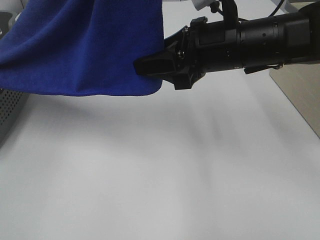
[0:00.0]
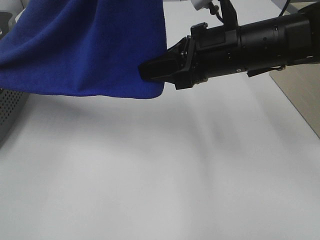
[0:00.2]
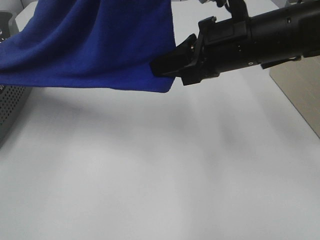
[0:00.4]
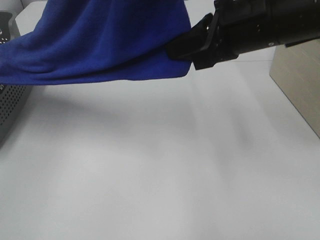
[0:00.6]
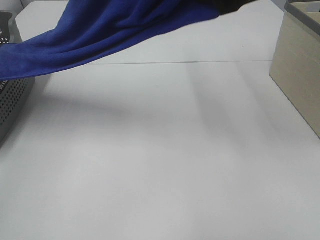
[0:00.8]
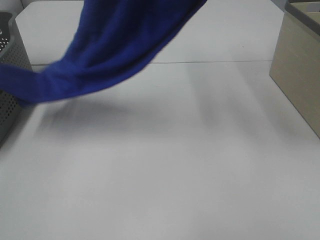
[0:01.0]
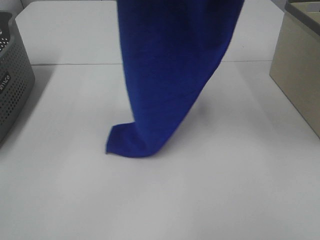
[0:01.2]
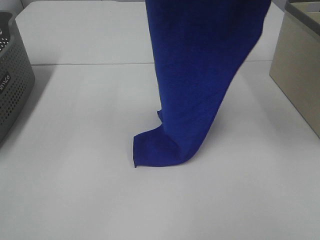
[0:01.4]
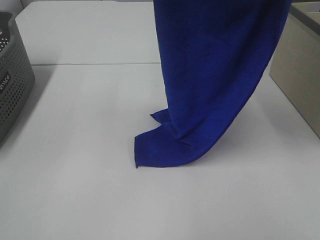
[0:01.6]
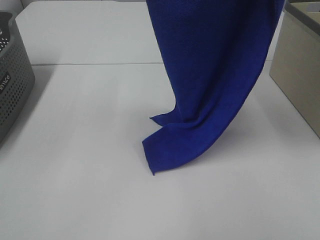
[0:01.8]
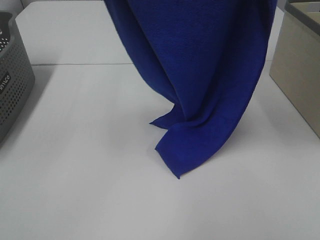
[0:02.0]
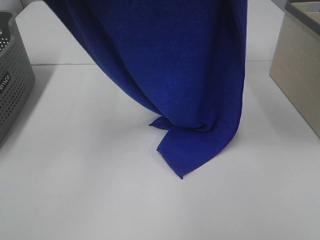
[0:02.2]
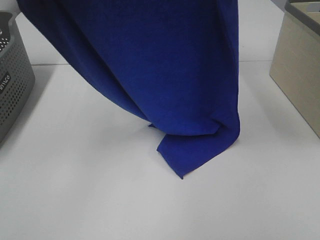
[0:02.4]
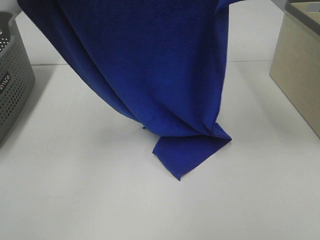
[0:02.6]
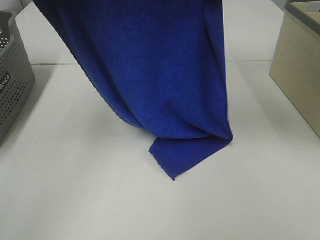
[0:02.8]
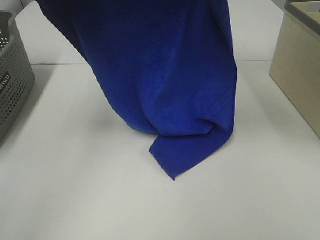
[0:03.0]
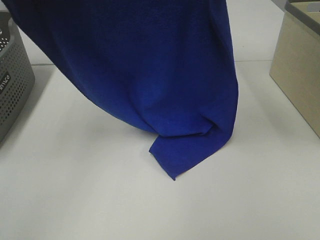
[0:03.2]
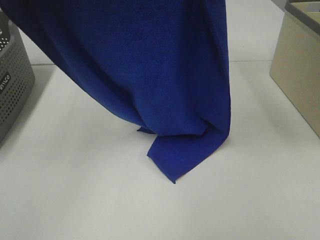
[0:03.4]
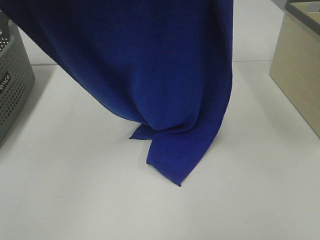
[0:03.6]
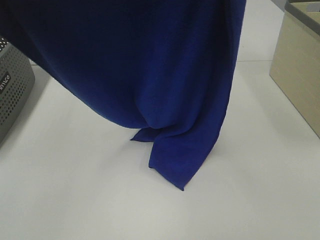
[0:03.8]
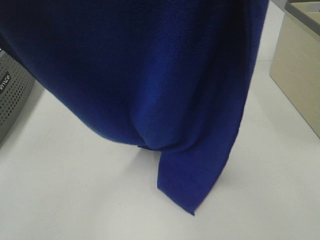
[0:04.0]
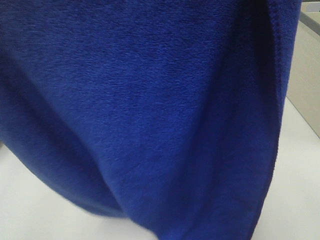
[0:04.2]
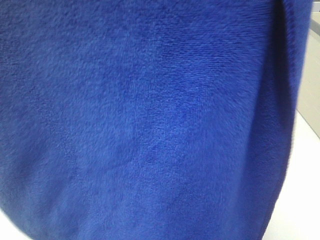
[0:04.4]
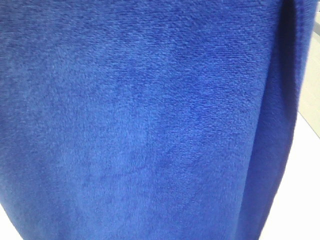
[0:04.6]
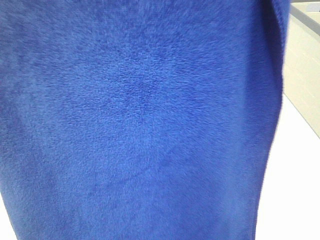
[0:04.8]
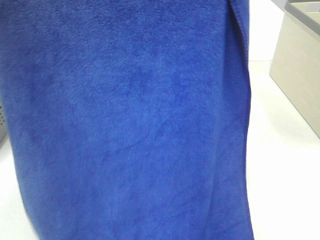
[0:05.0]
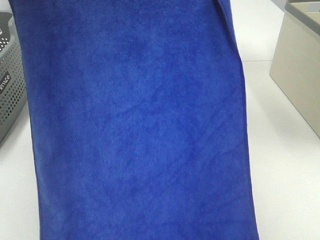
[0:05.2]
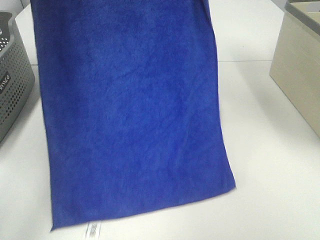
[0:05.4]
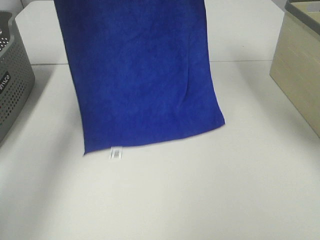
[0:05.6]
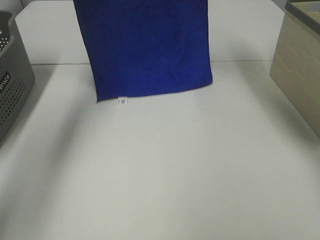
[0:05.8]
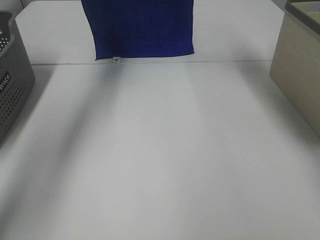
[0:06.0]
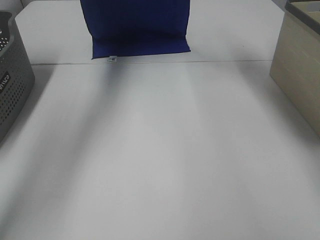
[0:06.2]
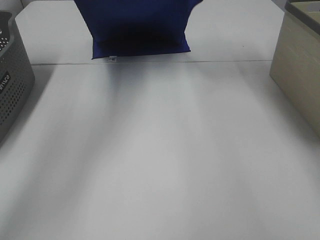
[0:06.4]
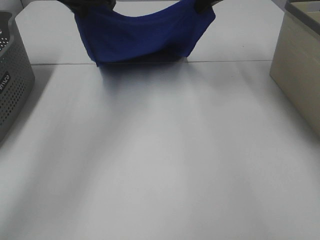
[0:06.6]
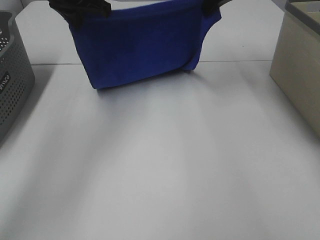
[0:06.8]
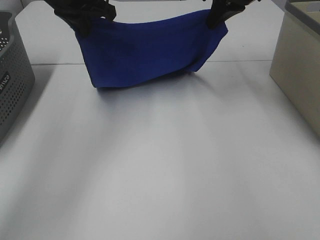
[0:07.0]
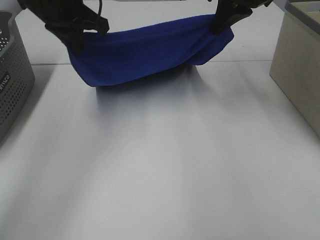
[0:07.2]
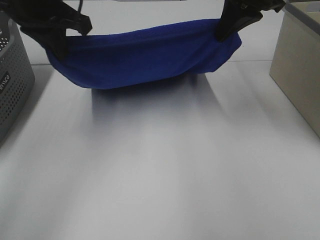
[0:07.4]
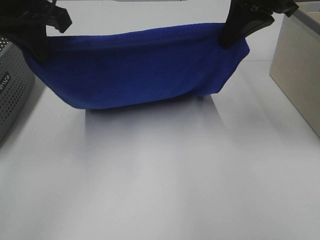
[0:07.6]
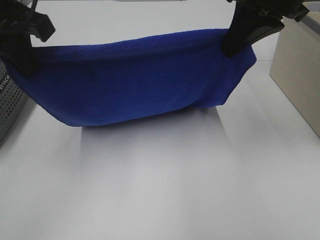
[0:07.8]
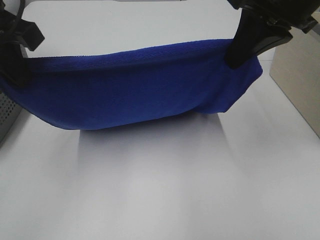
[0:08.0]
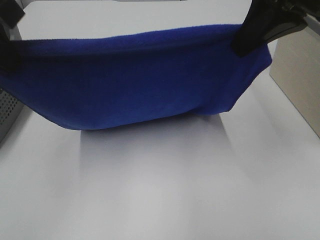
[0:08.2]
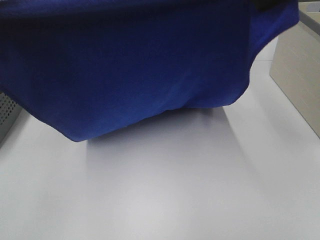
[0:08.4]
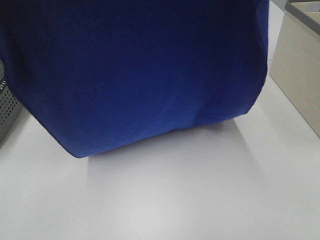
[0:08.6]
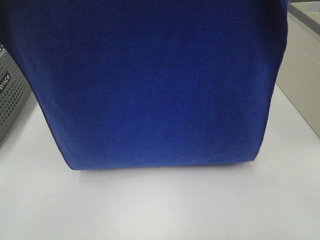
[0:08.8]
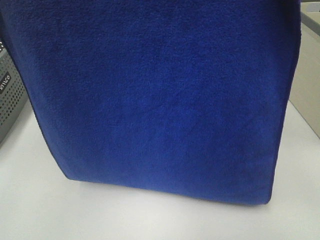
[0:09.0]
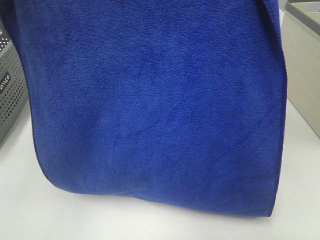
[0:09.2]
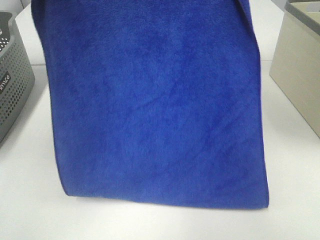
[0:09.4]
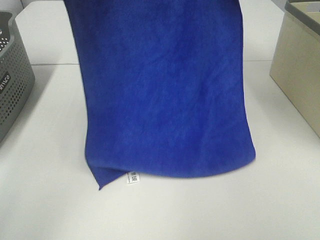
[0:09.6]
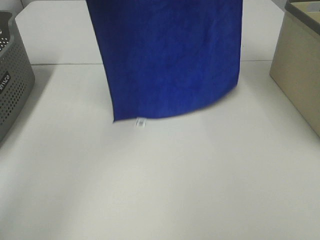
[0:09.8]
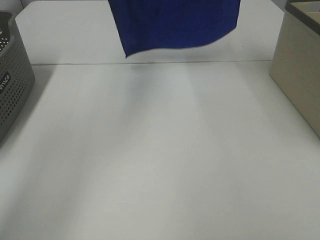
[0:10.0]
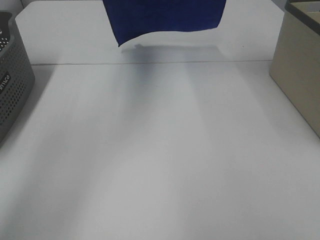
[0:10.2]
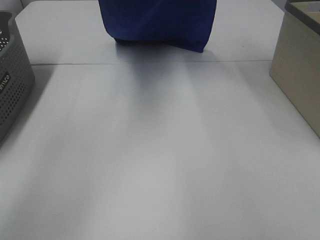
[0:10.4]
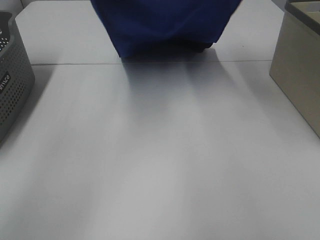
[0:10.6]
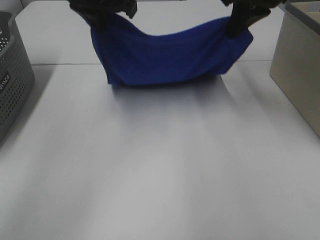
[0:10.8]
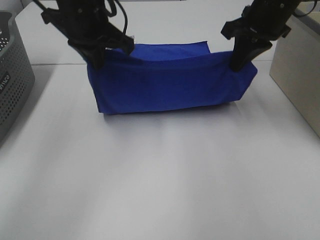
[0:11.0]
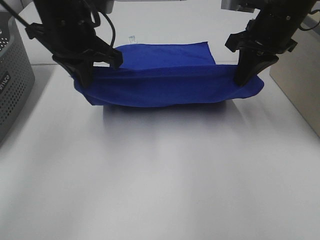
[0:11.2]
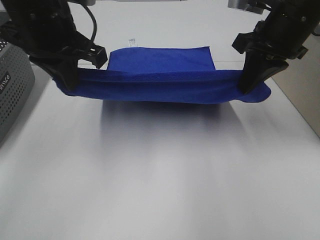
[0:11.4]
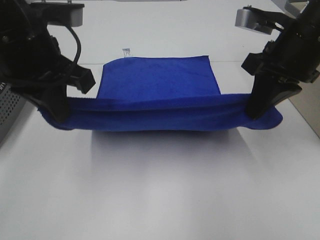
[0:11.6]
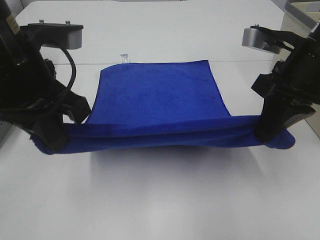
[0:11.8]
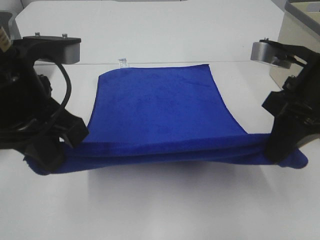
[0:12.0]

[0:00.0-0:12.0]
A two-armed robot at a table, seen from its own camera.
Task of the whole recording: Remove the towel and place it.
Step, 0:00.0 to 0:02.0: Right hand: grab a corner of the blue towel and straighten it.
Step, 0:02.2 to 0:09.8: Right hand: spread the blue towel flat on the table.
Step, 0:02.2 to 0:10.0: Left hand: spread the blue towel flat on the table.
0:00.0 to 0:01.6: The right gripper moves upward, approximately 25 cm, and closes its fingers.
0:01.6 to 0:03.0: The right gripper heads forward and to the left, covering some 10 cm. The left gripper travels to the left and downward by some 10 cm.
0:03.0 to 0:04.4: The grippers both shift backward and upward by some 25 cm.
0:04.4 to 0:06.0: Both grippers move forward, approximately 40 cm.
0:06.0 to 0:07.6: Both grippers travel together backward and downward, about 20 cm.
0:07.6 to 0:09.0: Both grippers move upward and backward, some 25 cm.
0:09.0 to 0:10.4: The left gripper shifts about 30 cm forward and to the right. Meanwhile the right gripper shifts approximately 25 cm forward.
0:10.4 to 0:12.0: The two grippers go some 25 cm backward and downward.

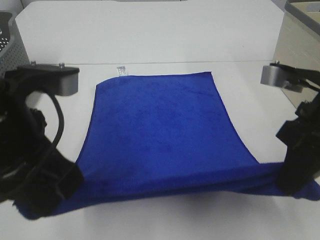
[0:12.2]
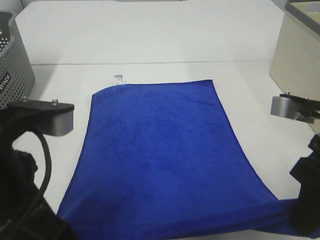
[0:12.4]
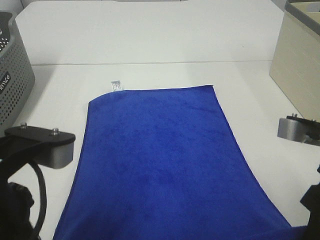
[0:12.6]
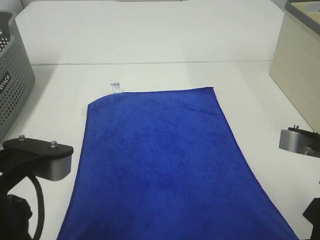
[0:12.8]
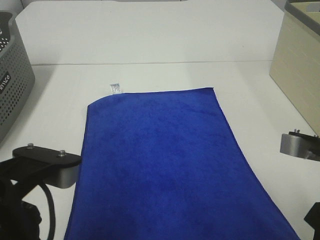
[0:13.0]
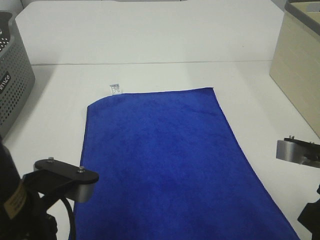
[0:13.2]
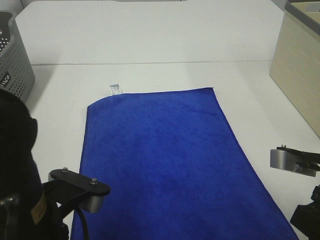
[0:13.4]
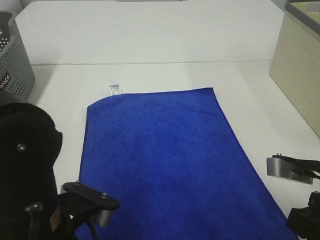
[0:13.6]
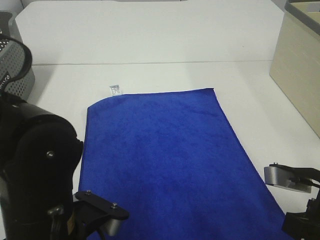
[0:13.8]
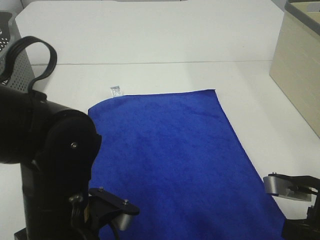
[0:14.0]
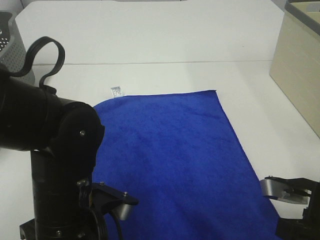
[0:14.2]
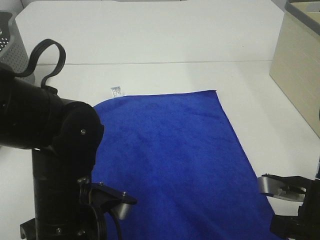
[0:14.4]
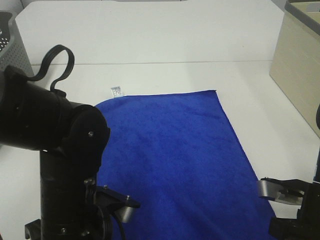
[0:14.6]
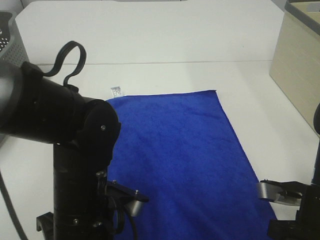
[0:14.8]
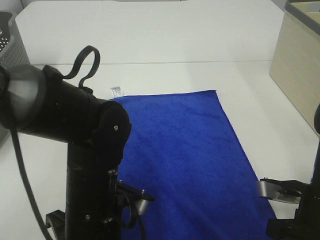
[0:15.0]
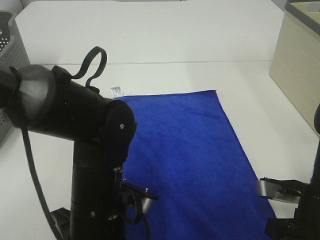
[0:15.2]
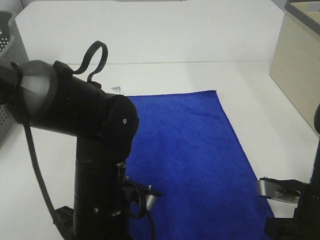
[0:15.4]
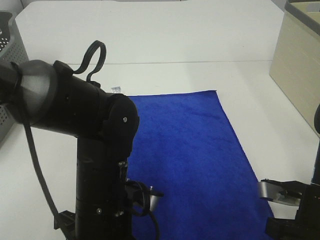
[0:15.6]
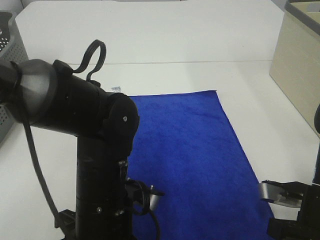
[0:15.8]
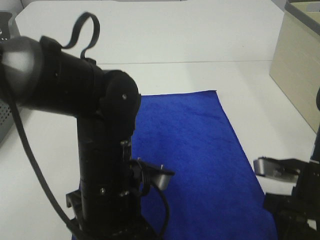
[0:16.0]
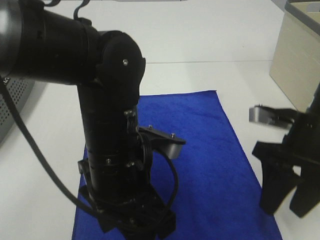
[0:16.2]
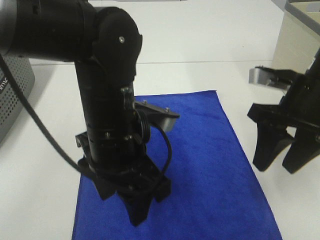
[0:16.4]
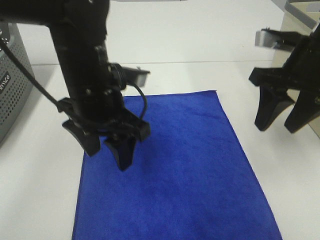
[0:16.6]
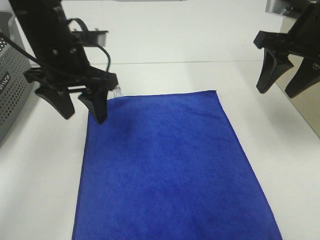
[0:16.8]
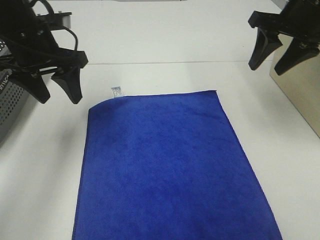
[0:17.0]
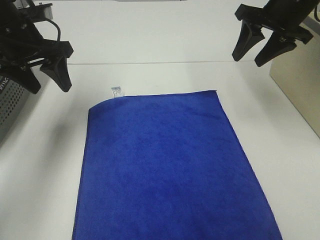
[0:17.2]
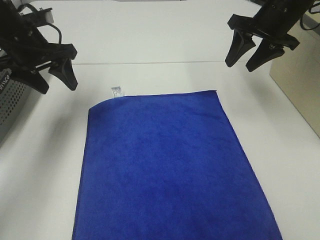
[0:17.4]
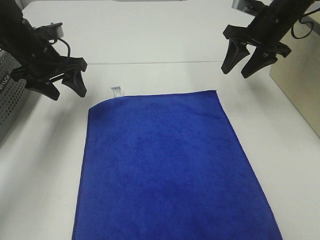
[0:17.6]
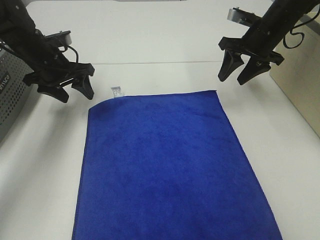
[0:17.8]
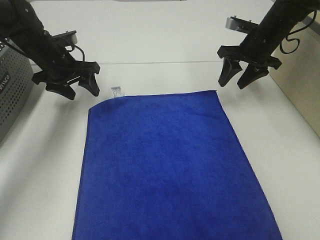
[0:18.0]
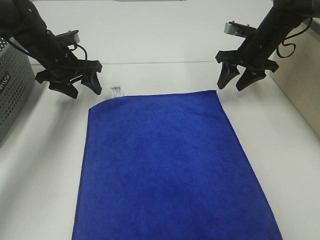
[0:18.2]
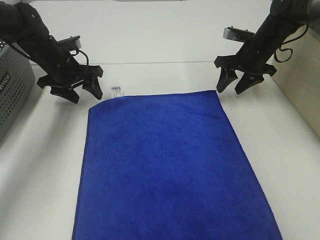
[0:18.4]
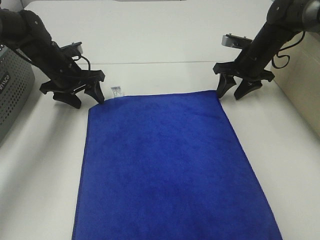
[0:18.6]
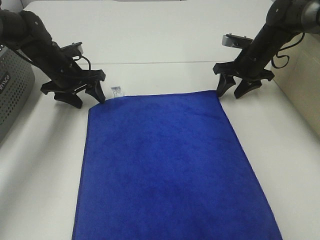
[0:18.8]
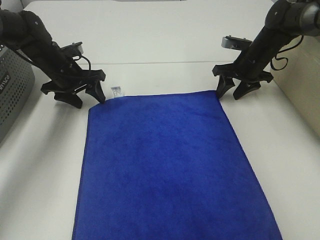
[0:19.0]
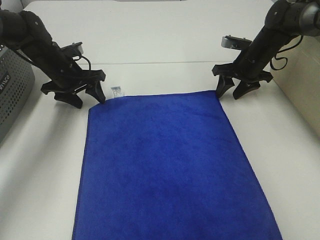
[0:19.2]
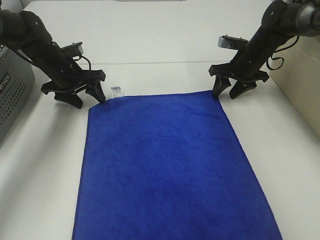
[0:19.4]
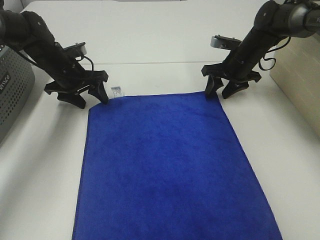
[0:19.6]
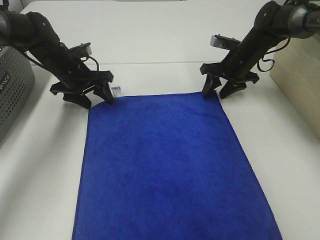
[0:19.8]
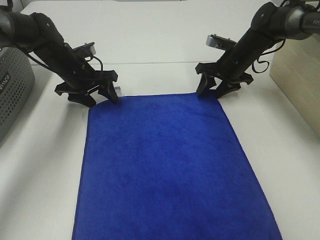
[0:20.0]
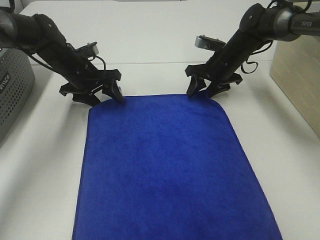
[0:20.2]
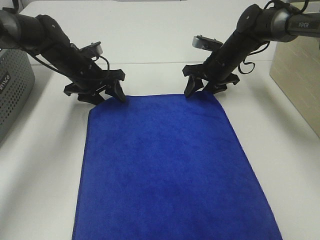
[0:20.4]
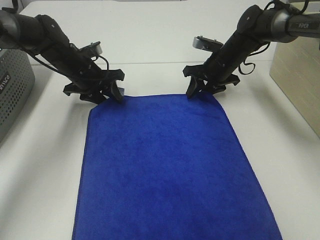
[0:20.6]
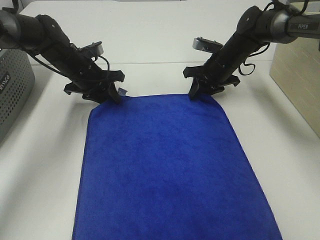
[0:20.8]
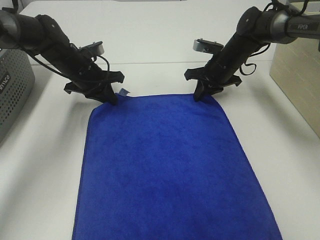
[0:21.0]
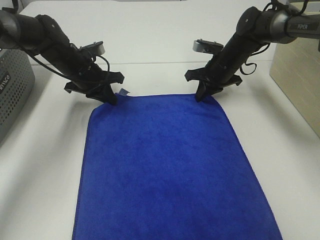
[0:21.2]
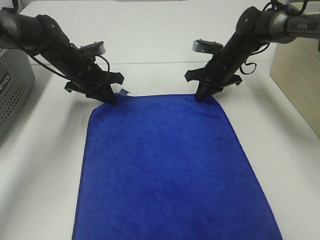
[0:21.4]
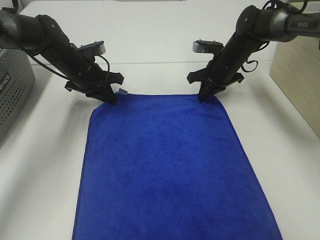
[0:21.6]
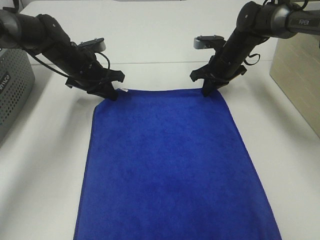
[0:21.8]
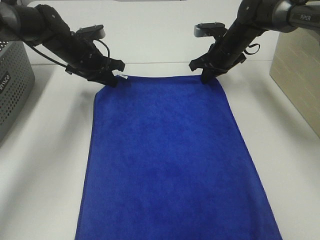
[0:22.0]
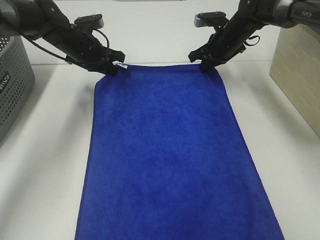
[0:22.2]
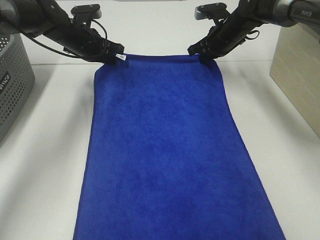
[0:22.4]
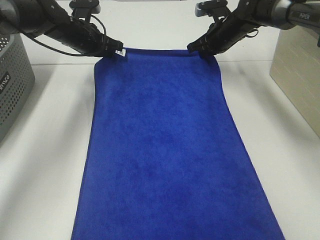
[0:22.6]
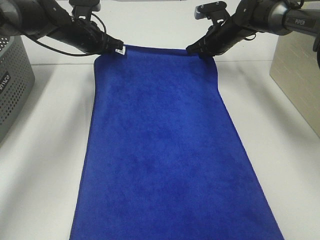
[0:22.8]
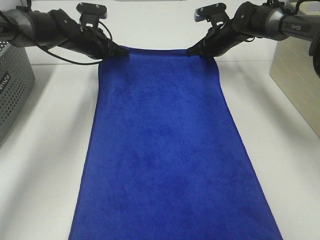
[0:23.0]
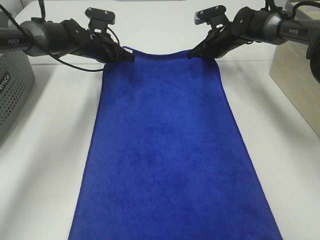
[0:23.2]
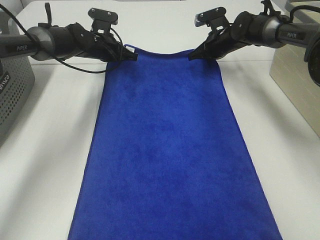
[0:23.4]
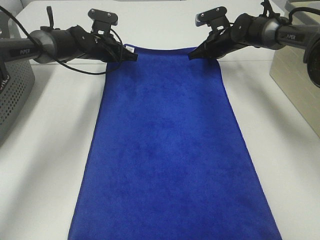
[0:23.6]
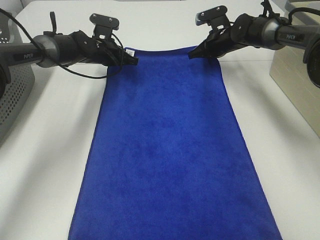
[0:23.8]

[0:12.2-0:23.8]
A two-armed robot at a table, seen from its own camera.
Task of the whole recording: Remove the towel and place it.
Step, 0:12.2 to 0:18.0: Right hand:adjust the blue towel.
Step, 0:12.2 to 0:20.6: Left hand:adjust the blue towel.
0:12.2 to 0:13.6: The grippers both shift downward and backward by some 10 cm.
0:13.6 to 0:15.0: The right gripper heads downward, covering approximately 5 cm, and opens its fingers, while the left gripper travels forward and downward by approximately 10 cm.
0:15.0 to 0:16.6: The right gripper goes roughly 20 cm upward and forward, and opens. Meanwhile the left gripper heads forward and upward, covering approximately 15 cm, and opens up.
0:16.6 to 0:18.0: The right gripper goes some 20 cm forward and downward. Meanwhile the left gripper shifts approximately 25 cm forward, to the left and downward.
0:18.0 to 0:19.4: The right gripper heads downward, covering roughly 5 cm.
0:19.4 to 0:21.0: The right gripper shifts some 5 cm to the left, and closes its fingers, while the left gripper closes.
0:21.0 to 0:22.4: The right gripper travels upward by about 5 cm. The left gripper shifts by approximately 5 cm.
0:22.4 to 0:23.8: The left gripper is displaced downward by about 5 cm.
